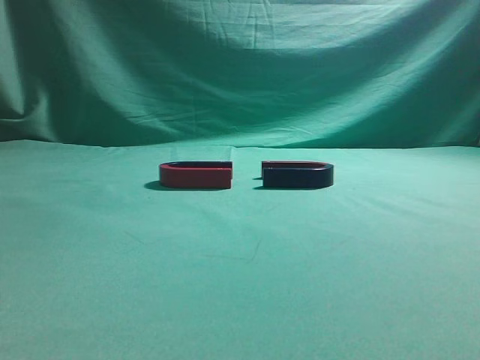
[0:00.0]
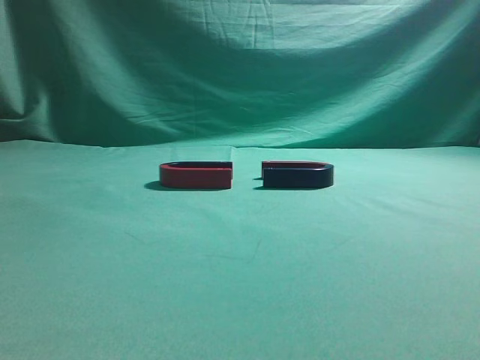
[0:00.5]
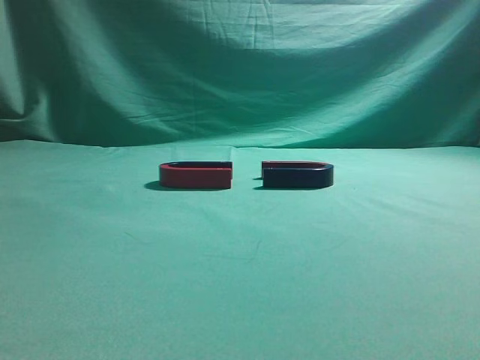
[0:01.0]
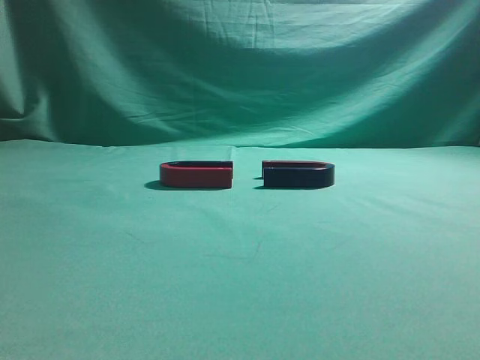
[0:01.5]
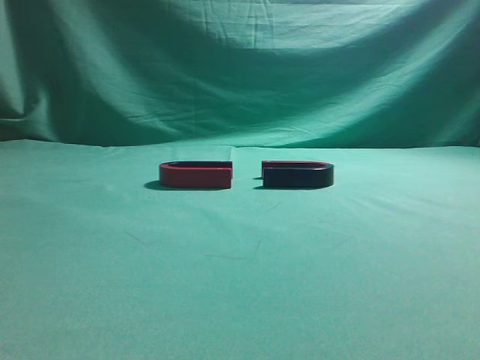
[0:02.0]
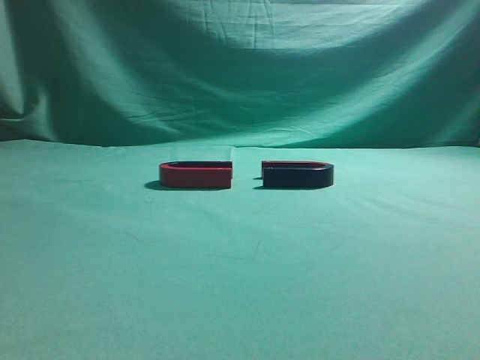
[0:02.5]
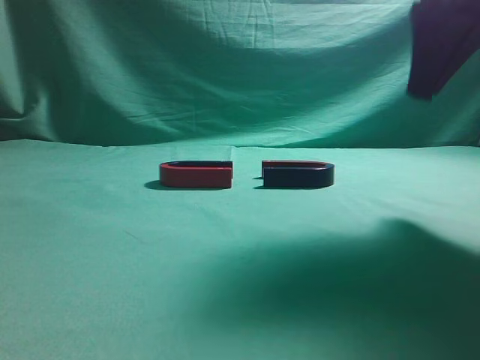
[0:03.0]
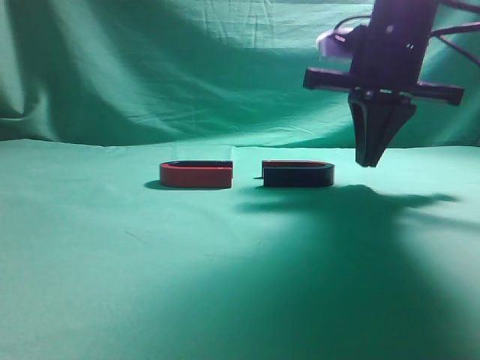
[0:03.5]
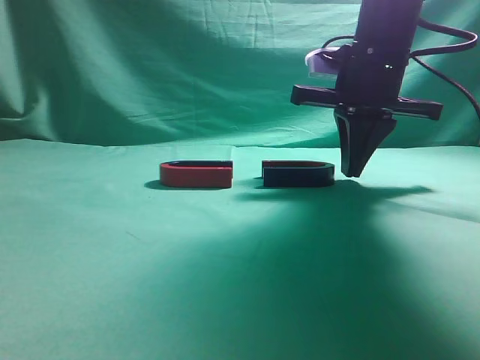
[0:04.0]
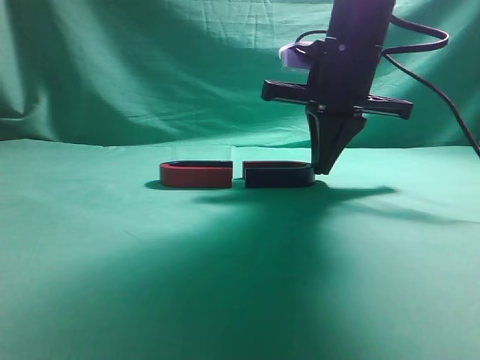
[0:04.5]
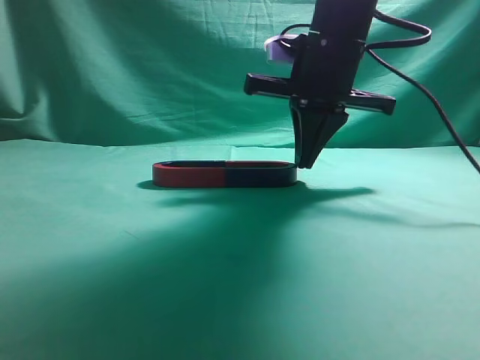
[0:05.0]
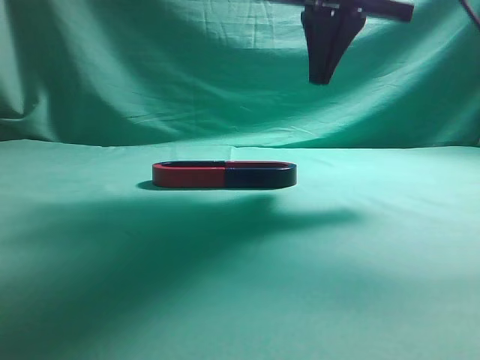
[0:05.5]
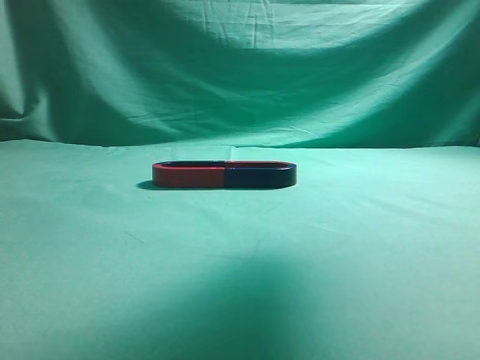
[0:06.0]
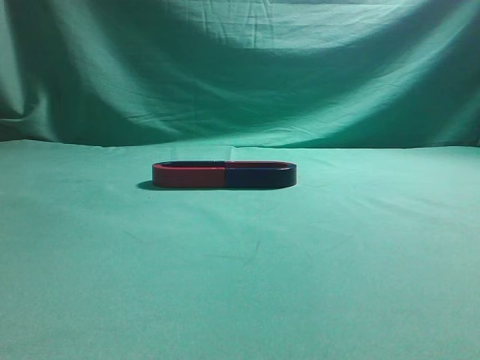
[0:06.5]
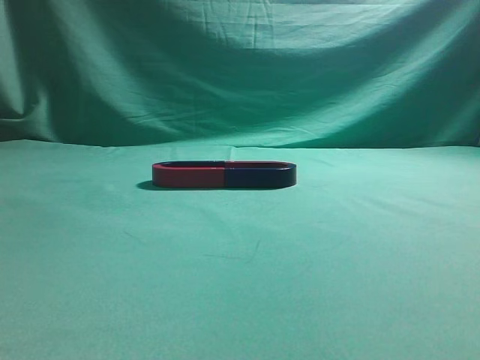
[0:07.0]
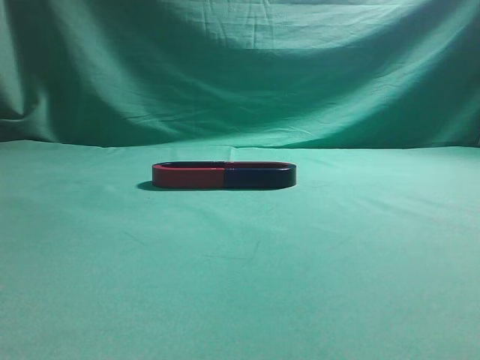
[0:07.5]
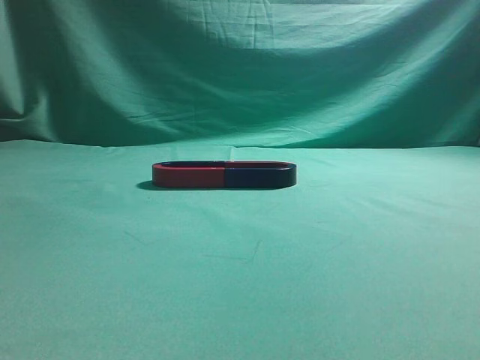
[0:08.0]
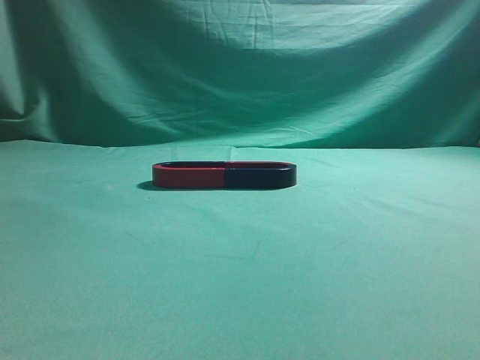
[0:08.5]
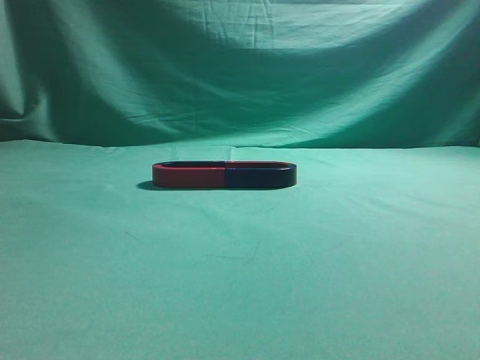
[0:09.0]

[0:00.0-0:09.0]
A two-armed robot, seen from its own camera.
Task of the whole recording: push the magnet on the table from its original position to another position.
Step, 0:00.0 to 0:05.0: Push the magnet on the right to connect the magnet on the left.
0:02.0 to 0:04.5: The right gripper shifts some 35 cm forward and to the left.
0:04.5 to 0:07.0: The right gripper goes roughly 40 cm backward, upward and to the right.
